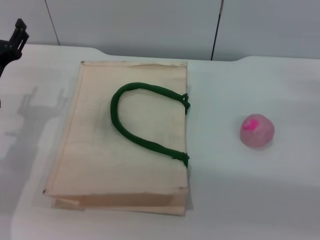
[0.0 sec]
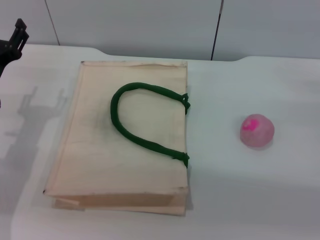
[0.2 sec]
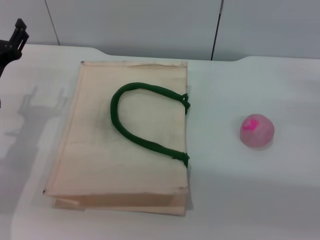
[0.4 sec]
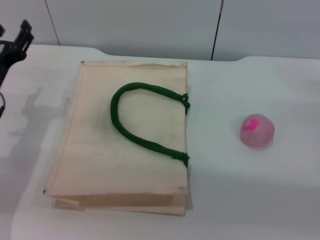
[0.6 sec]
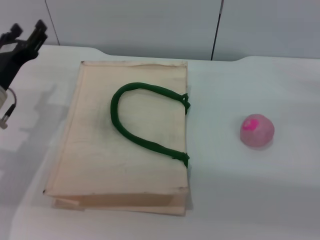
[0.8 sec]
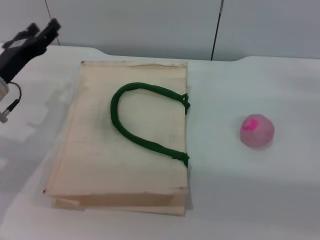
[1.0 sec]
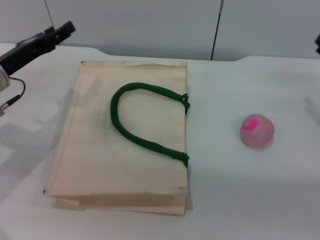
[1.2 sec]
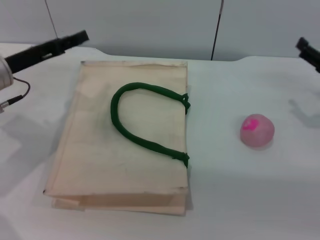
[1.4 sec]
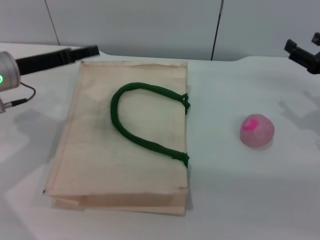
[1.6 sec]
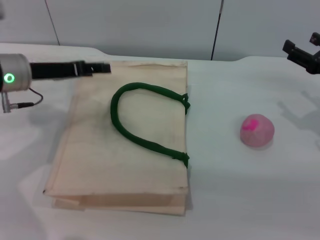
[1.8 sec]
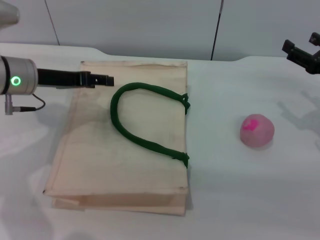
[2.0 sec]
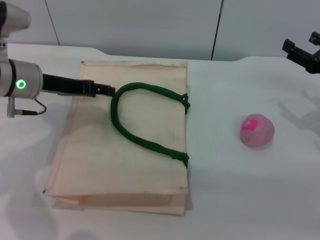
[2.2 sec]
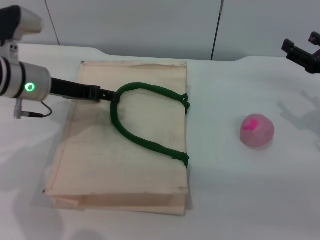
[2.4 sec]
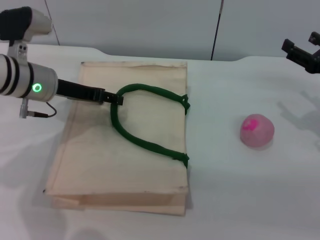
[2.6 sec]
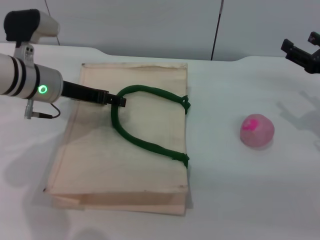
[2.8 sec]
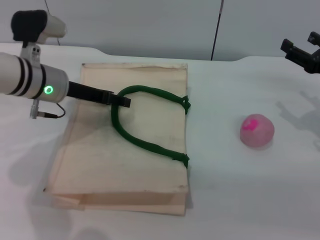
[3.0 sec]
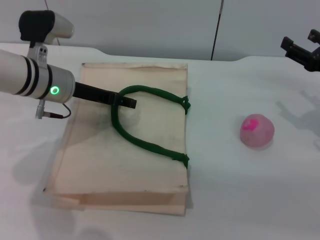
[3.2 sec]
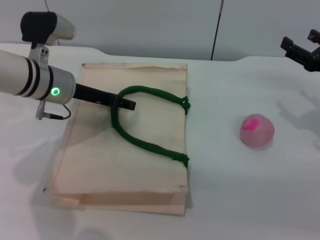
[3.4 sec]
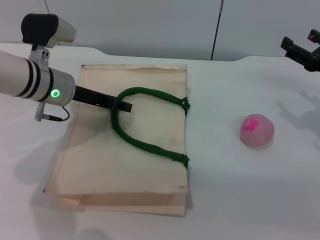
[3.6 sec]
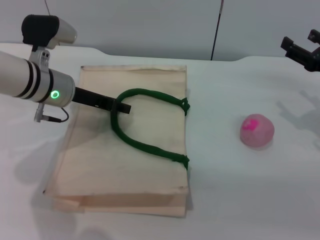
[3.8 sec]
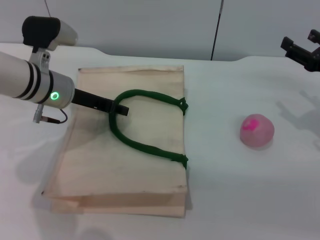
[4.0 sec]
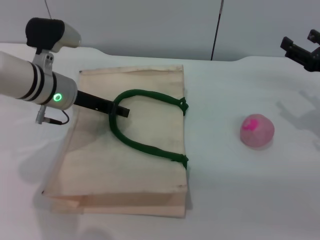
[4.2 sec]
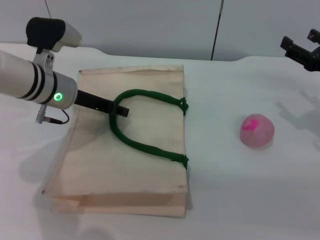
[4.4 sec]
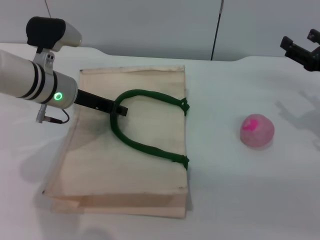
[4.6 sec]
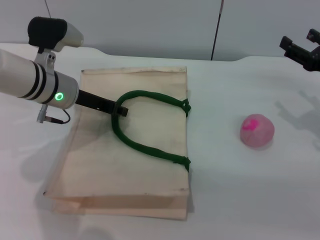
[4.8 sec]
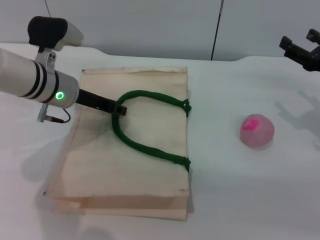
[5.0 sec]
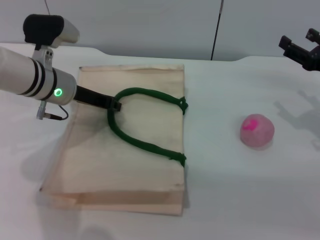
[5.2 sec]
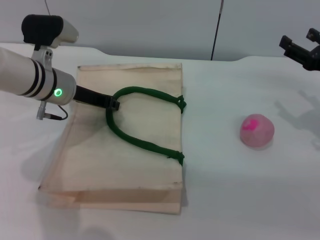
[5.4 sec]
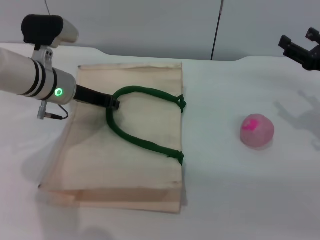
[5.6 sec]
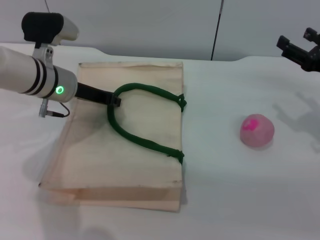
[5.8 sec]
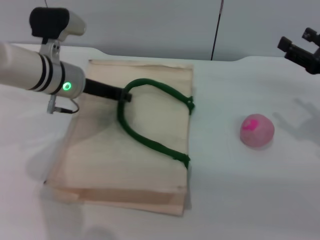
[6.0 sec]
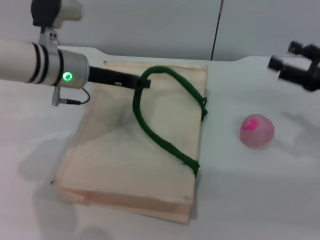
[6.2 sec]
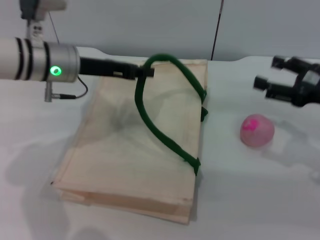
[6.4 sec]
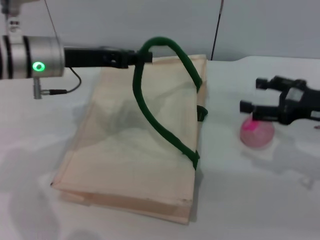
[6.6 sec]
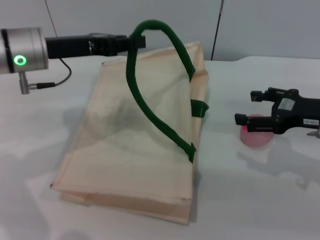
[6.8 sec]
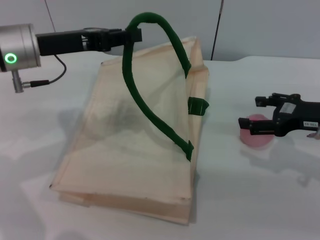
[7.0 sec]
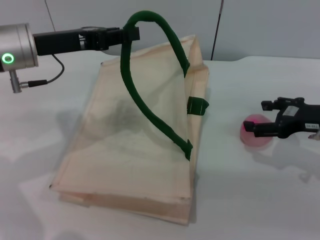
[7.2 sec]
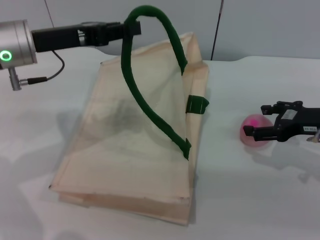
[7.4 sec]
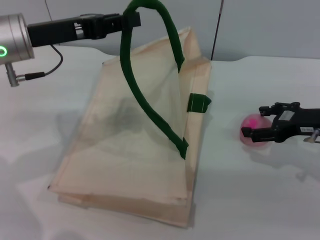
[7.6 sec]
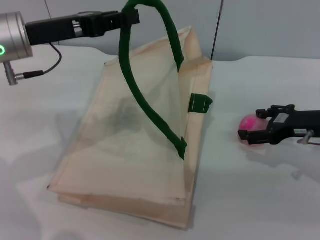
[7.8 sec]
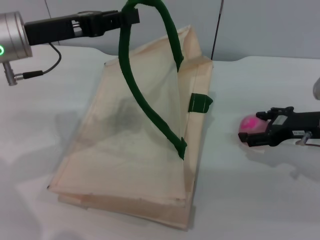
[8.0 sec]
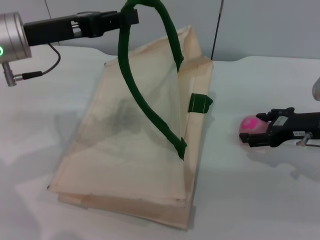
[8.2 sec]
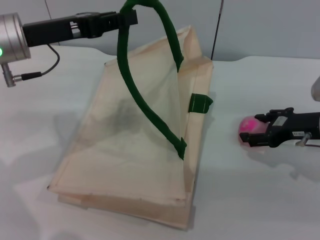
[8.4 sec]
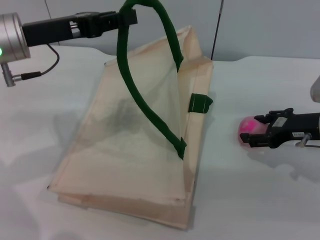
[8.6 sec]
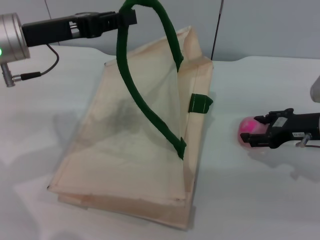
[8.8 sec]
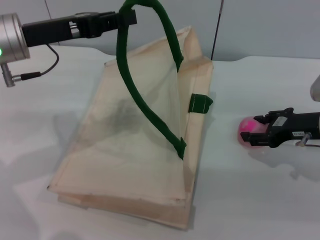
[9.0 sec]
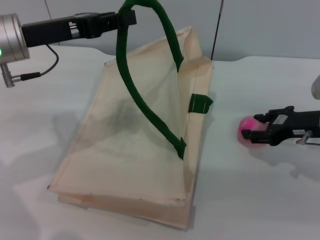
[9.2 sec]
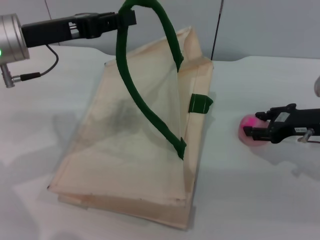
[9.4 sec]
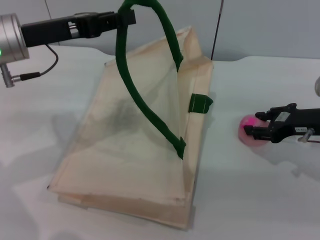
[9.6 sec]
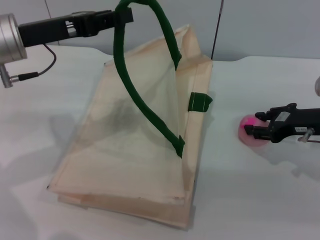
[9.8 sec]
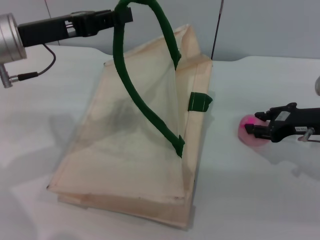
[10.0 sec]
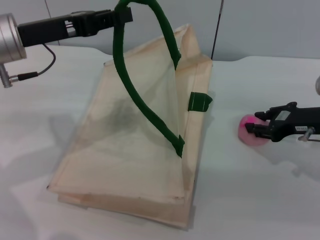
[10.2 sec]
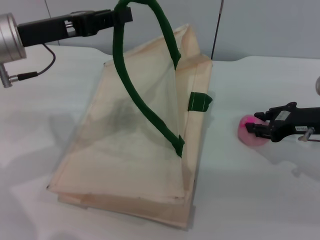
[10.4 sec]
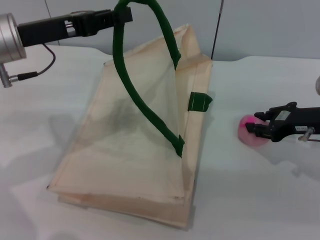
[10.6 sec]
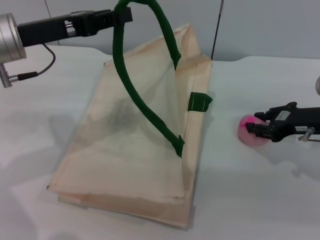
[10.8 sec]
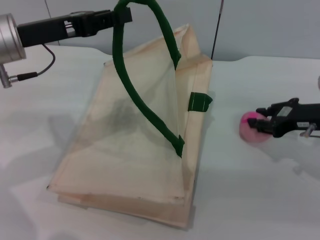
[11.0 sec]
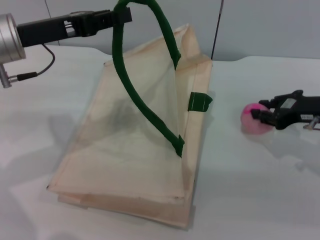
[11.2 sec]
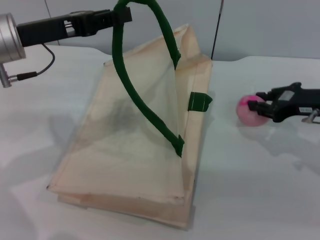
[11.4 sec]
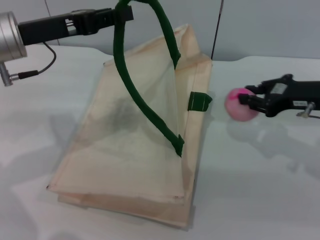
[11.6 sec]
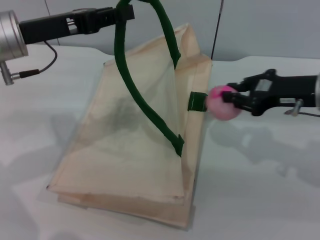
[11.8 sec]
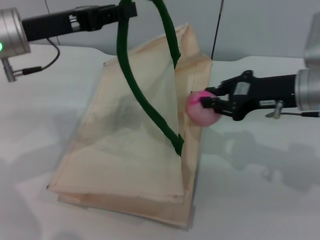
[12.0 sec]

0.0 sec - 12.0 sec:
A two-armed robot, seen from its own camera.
Task of the whole recording: pick up the peach from the table and place it in the white handbag.
Step, 0.0 sec - 5.6 sec: Lift the woven bag with the left gripper to open it.
Step, 5.8 sec - 11.6 sec: Pick up the peach with the right gripper.
0.0 sec - 1.6 sec: The right gripper changes place by about 5 cm. The left gripper goes roughly 5 cm upward.
1.6 sec - 3.0 sec: The left gripper moves to the right, some 5 cm.
3.0 sec - 4.4 sec: The grippers stay close to where they were, moving slightly.
4.4 sec - 6.0 sec: The left gripper closes up.
6.0 sec - 7.6 sec: The left gripper heads upward, covering about 10 cm.
7.6 sec - 9.0 sec: The grippers move only a little.
9.0 sec - 10.4 sec: The right gripper closes.
10.4 sec - 12.0 sec: The right gripper is displaced to the left and upward by roughly 10 cm.

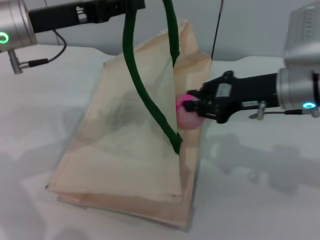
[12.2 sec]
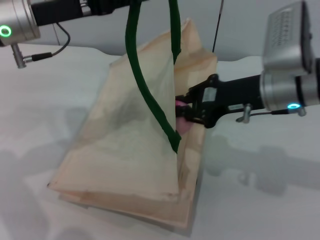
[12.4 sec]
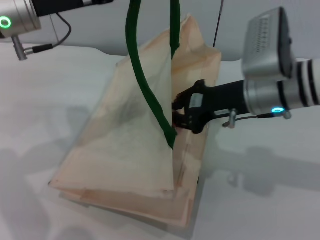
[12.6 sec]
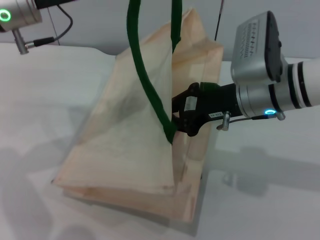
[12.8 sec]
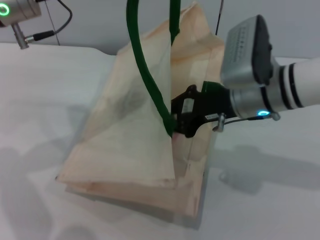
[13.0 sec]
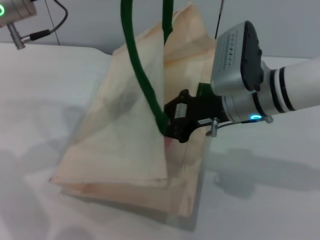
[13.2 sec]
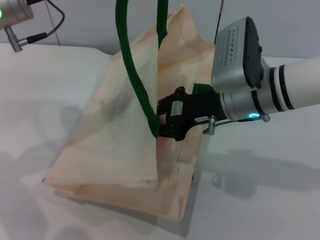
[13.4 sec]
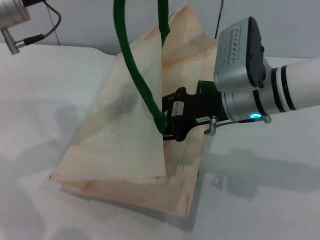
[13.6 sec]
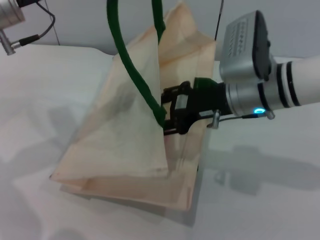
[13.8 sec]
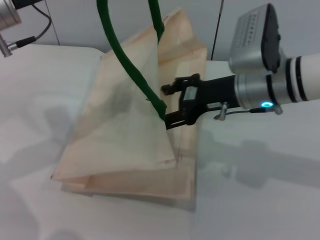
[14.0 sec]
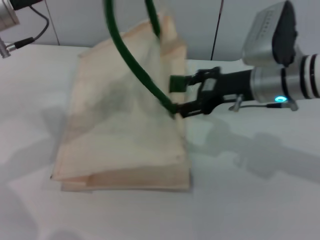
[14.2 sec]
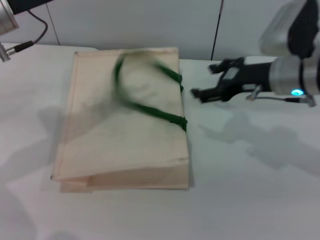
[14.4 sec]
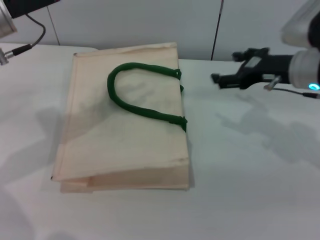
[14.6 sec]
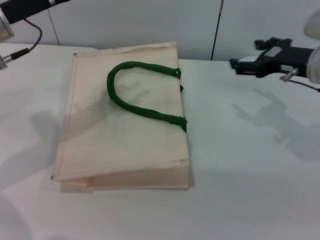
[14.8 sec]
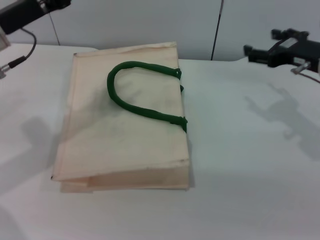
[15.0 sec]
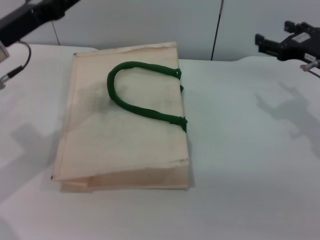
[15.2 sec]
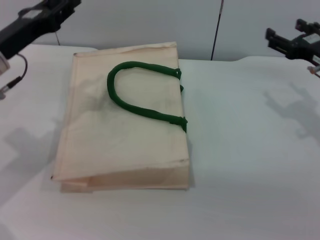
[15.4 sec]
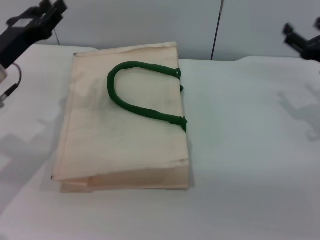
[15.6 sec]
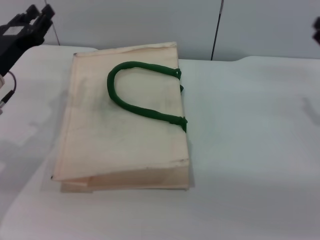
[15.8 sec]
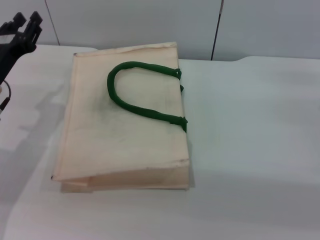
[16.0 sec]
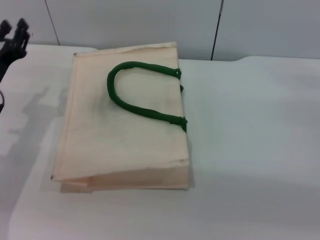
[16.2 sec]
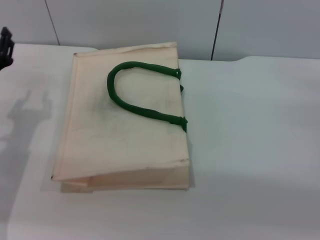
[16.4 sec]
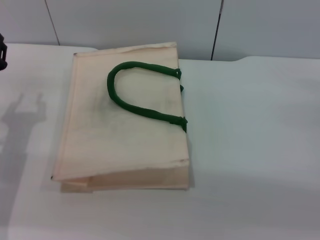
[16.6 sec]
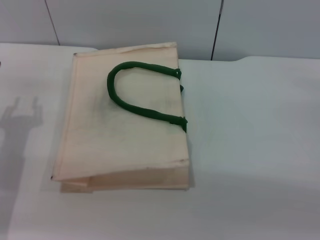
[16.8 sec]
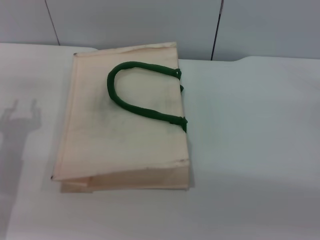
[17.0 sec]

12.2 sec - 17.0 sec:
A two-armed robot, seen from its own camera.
Task of the whole recording: pick up the peach from the table and place it in the white handbag.
Step, 12.2 sec - 14.0 sec: Place the peach into the woven bag with the right gripper.
Step, 14.2 sec - 14.4 sec: Lower the woven bag with the left gripper to close it.
12.2 sec - 13.8 sec: The right gripper moves to the left, about 5 cm.
13.8 sec - 15.4 sec: The right gripper moves to the right, approximately 15 cm, and opens up. Meanwhile the left gripper heads downward, covering about 10 cm, and opens up.
15.4 sec - 17.0 sec: The right gripper heads to the right, backward and downward, covering roughly 10 cm; the left gripper goes about 10 cm downward and backward.
